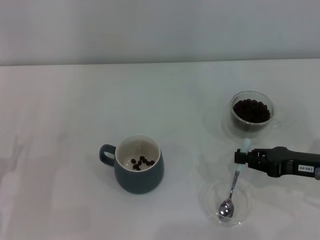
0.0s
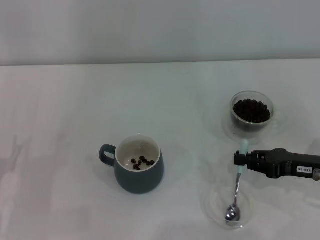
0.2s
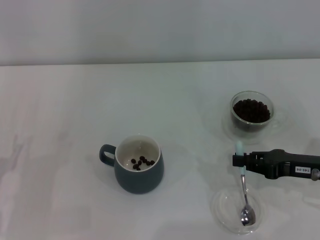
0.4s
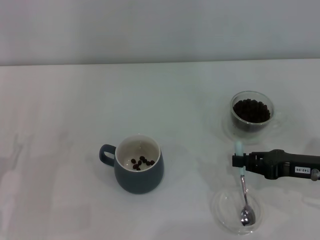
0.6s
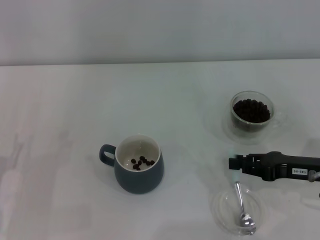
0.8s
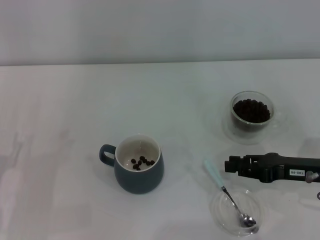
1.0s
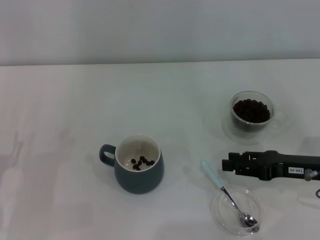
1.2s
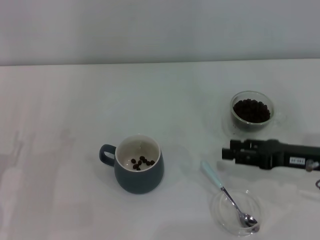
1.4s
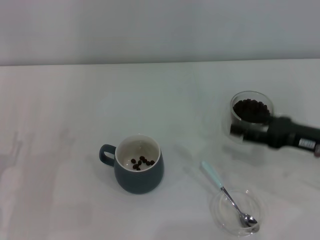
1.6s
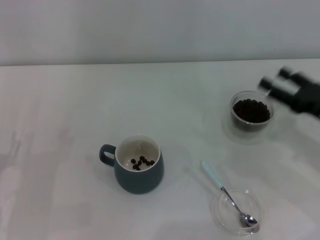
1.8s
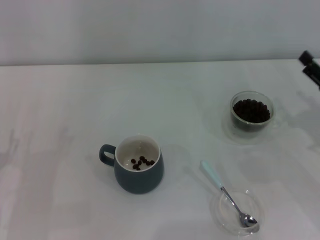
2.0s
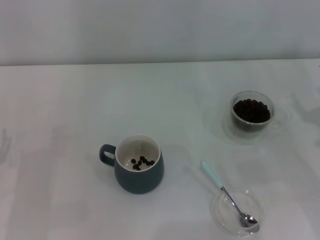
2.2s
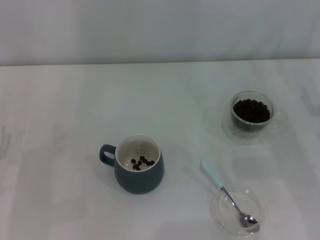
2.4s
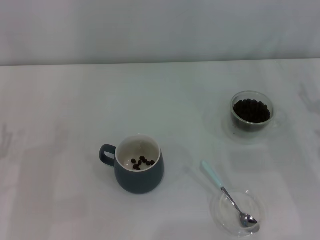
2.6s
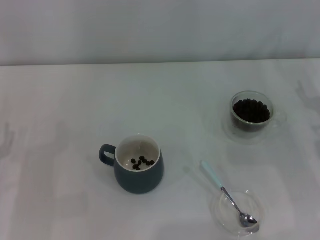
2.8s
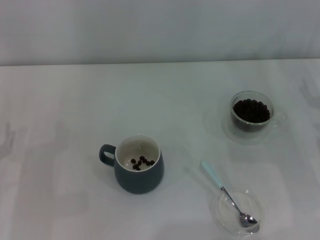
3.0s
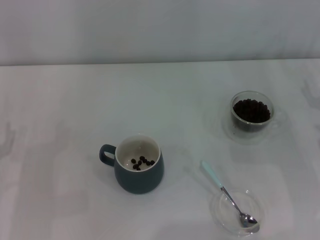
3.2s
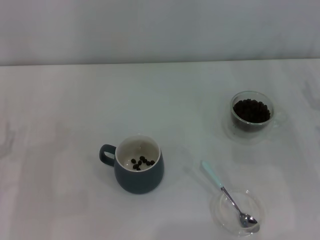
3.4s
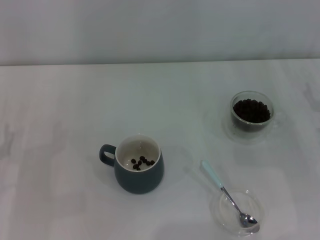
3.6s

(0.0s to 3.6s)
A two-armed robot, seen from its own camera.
Task of the whole recording: Use a blue spoon to take out the coffee beans from the glass and pour them into the gray cup.
0.0s - 1.8s: The right gripper opens up.

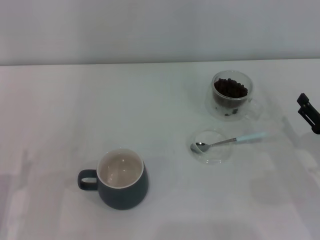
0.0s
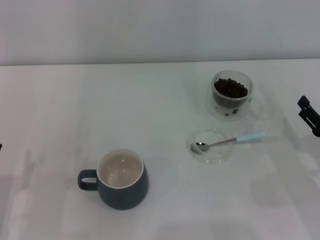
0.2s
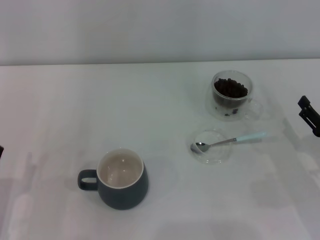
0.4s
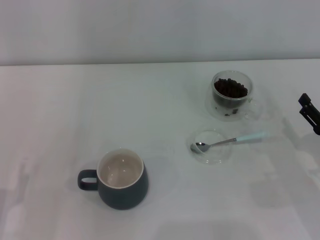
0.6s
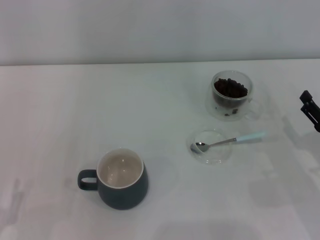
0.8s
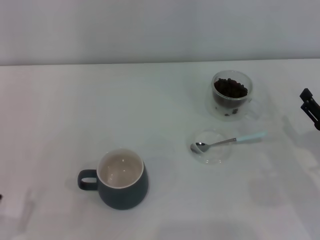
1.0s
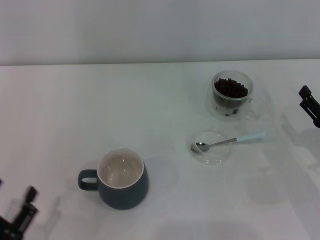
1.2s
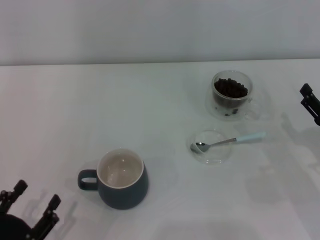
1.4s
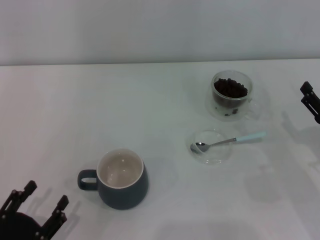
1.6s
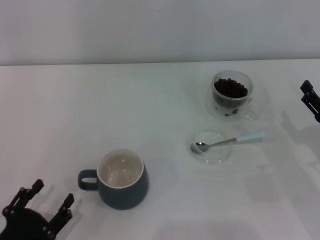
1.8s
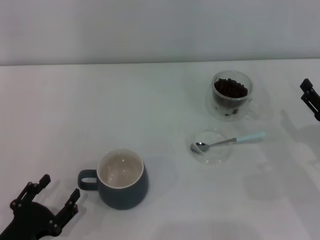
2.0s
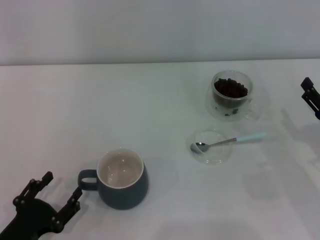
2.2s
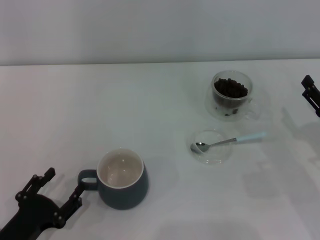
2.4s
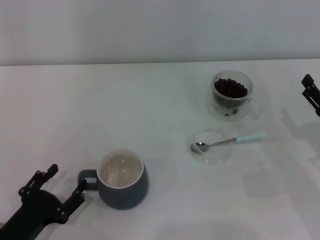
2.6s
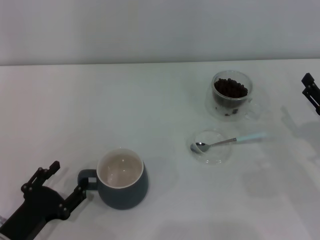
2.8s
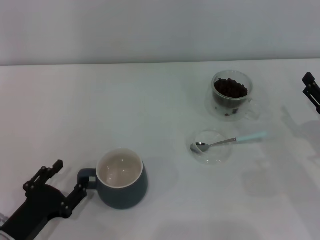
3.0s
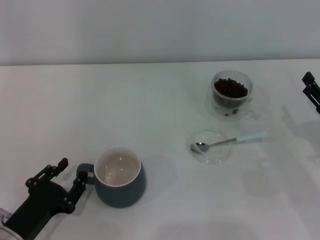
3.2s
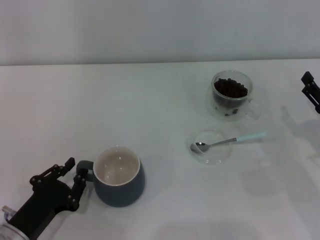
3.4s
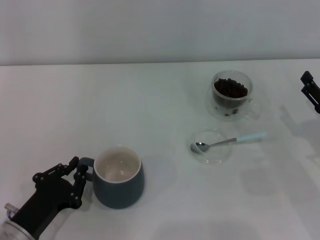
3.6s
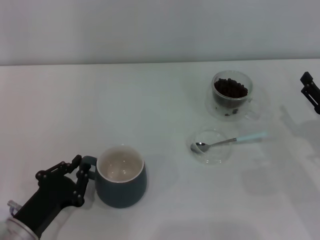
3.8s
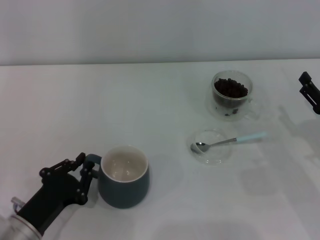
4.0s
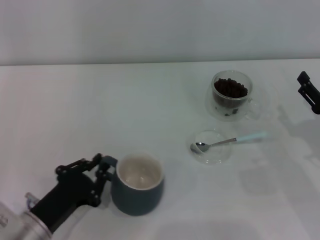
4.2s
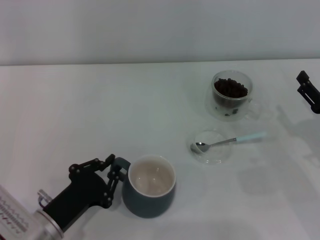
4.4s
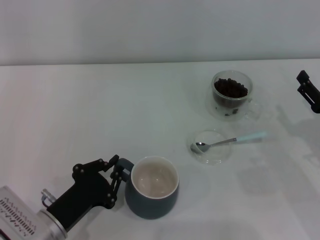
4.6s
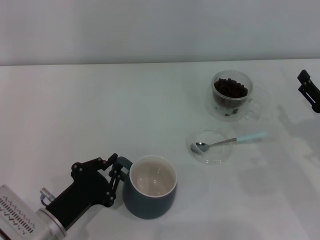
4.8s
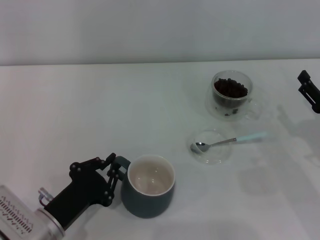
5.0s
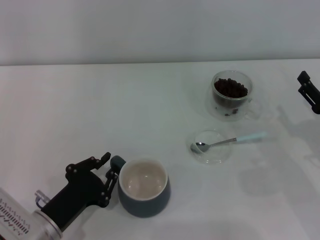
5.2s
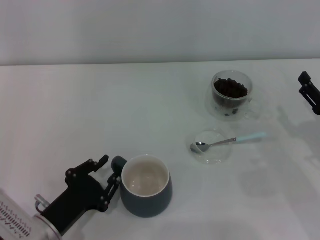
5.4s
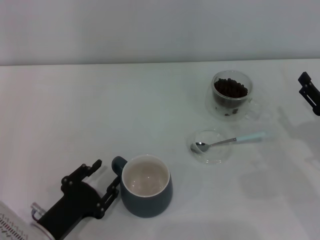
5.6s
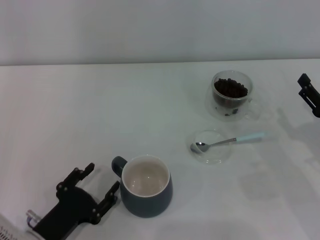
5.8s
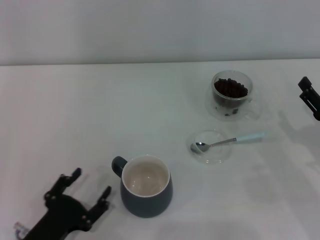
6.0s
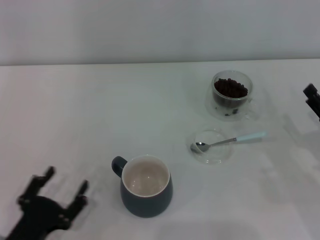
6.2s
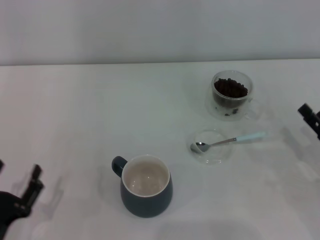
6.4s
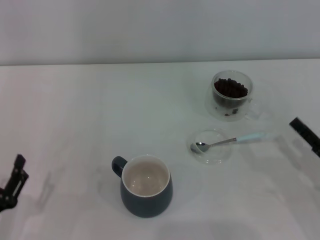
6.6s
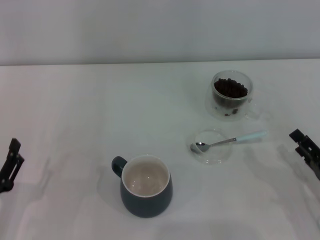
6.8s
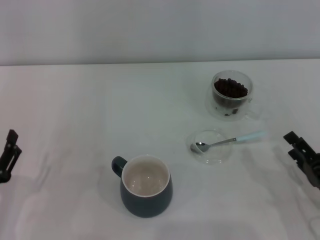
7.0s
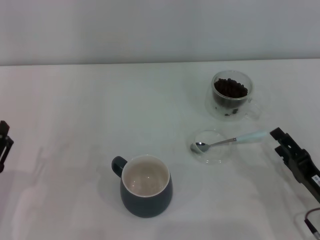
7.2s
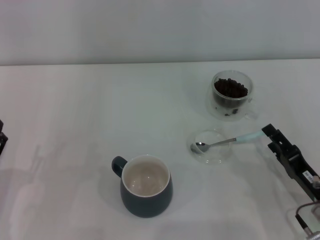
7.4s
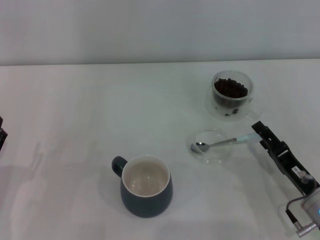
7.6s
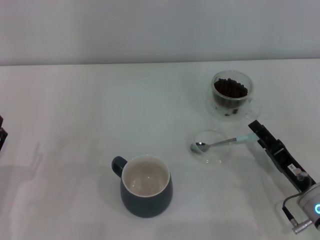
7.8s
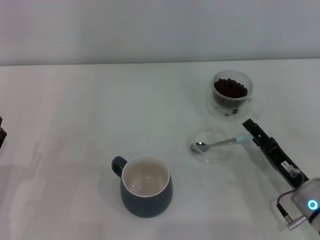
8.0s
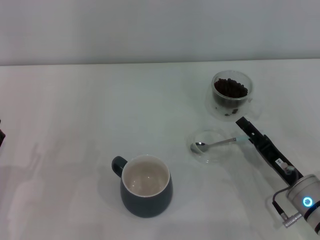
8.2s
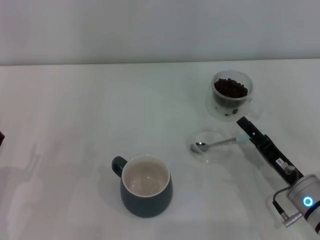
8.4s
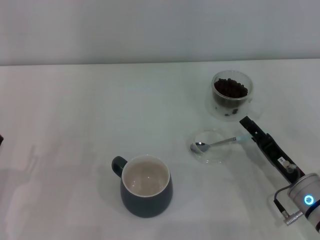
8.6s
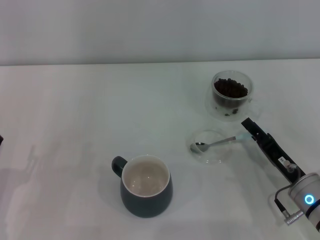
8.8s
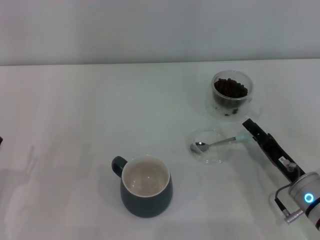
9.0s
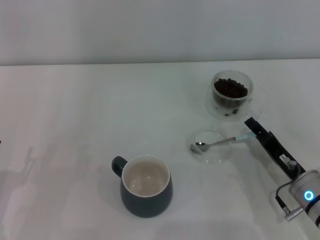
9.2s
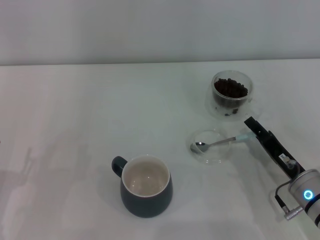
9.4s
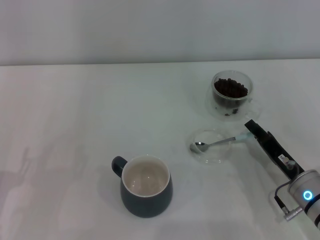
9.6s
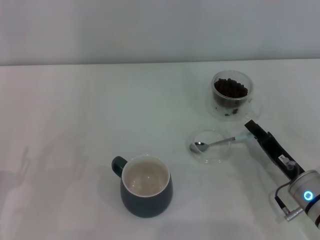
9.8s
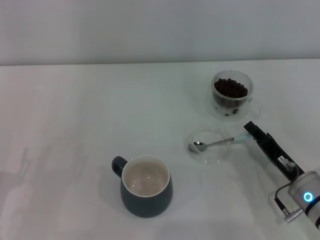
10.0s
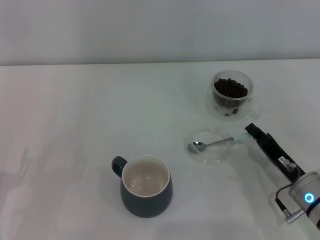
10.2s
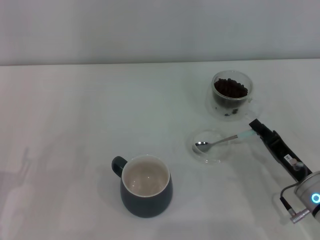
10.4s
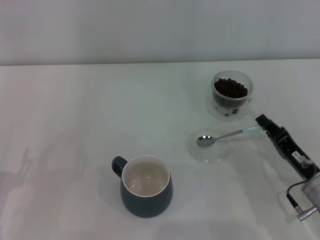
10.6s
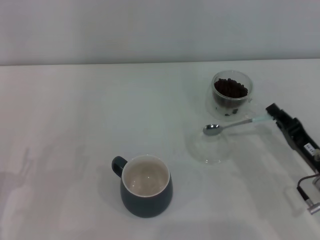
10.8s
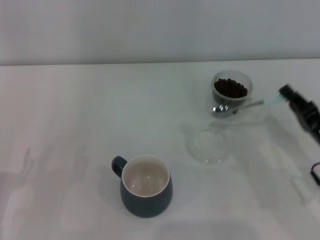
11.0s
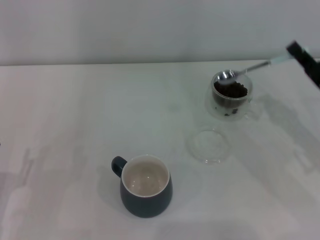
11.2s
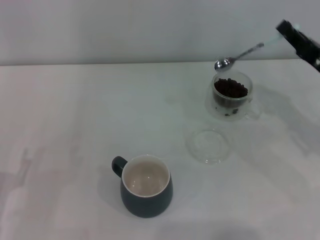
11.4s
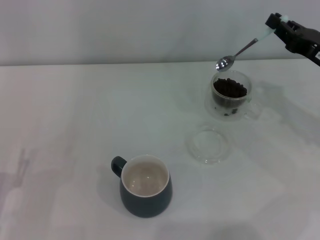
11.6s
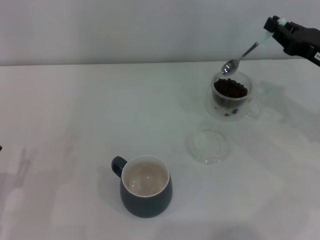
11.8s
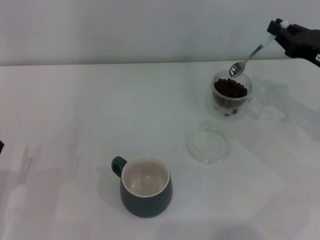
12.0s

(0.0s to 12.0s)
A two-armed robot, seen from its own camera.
Task of the whole recording: Use a blue spoon to take out the coffee beans from the glass and pour them into the gray cup.
Step, 0.0s - 5.8s: Move the cup to the center of view with the left gripper.
Step, 6.2s - 10.8s: Pick up the spoon with the right gripper.
0.0s - 1.6s: The left gripper is displaced backward by some 5 cm.
1.6s - 3.0s: The left gripper moves forward, about 5 cm.
3.0s - 4.4s: The left gripper shifts by some 5 cm, and closes up.
4.4s - 6.0s: The left gripper opens.
6.0s - 7.6s: Both grippers move to the left, approximately 5 cm.
7.6s - 9.0s: The grippers make only small movements.
9.0s - 10.4s: The right gripper closes its fingers.
10.4s - 12.0s: The right gripper goes approximately 20 cm upward, forward and to the right.

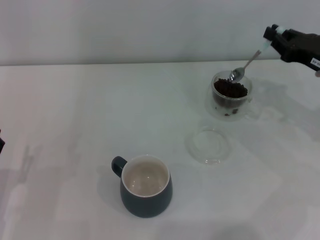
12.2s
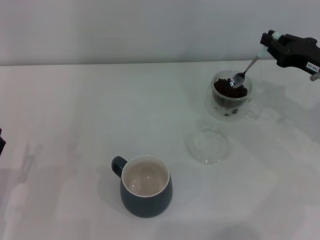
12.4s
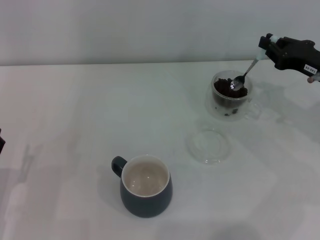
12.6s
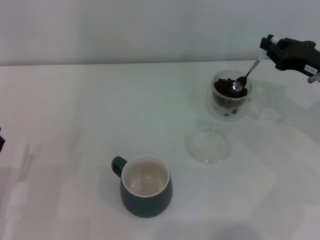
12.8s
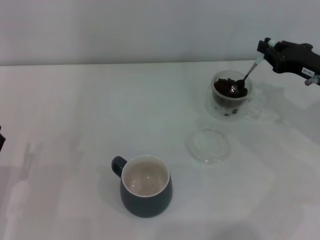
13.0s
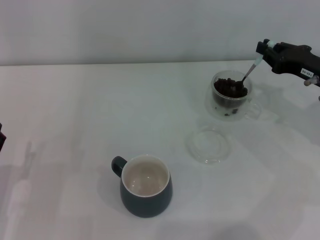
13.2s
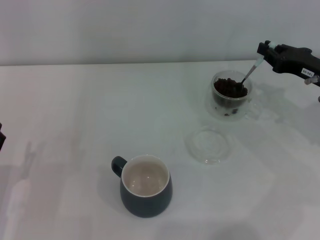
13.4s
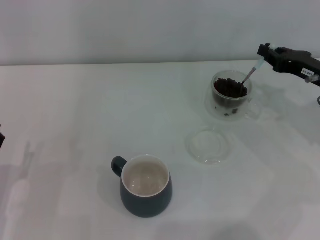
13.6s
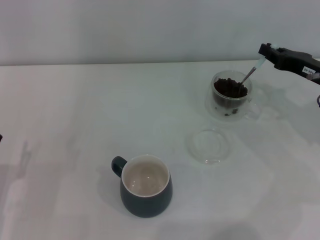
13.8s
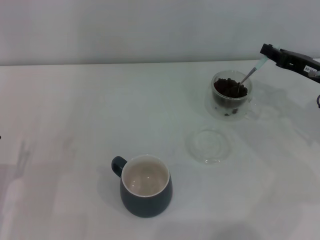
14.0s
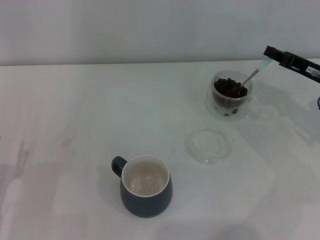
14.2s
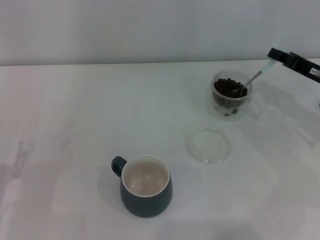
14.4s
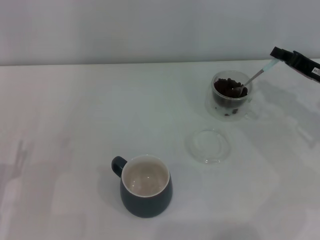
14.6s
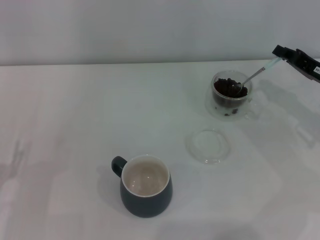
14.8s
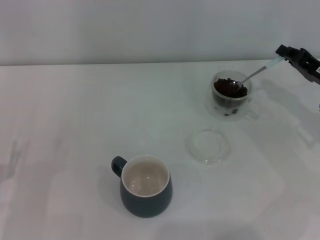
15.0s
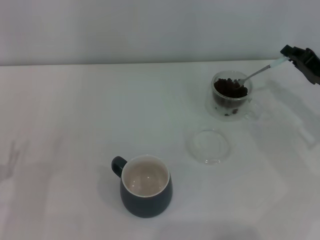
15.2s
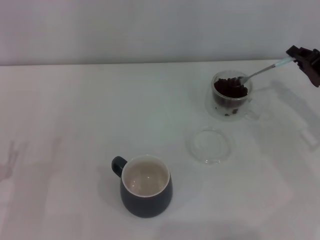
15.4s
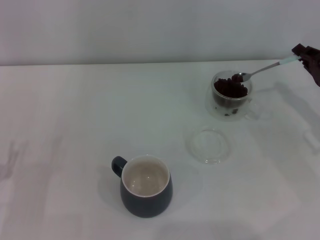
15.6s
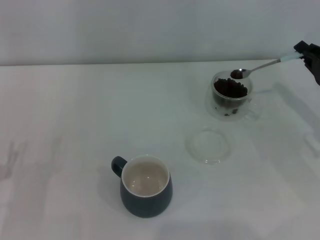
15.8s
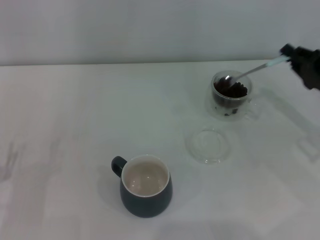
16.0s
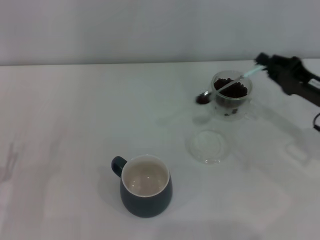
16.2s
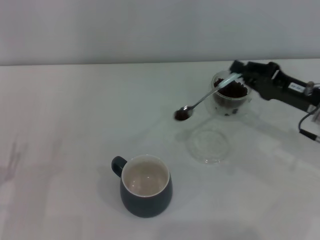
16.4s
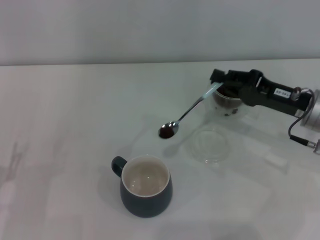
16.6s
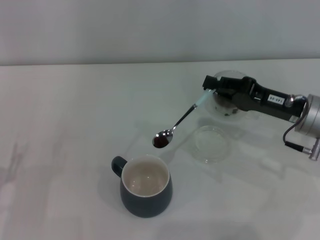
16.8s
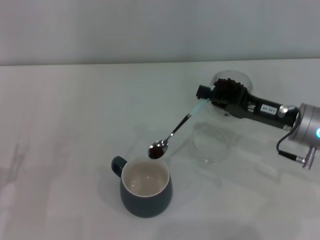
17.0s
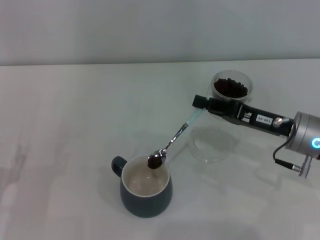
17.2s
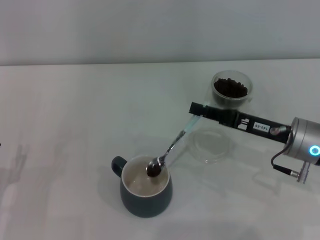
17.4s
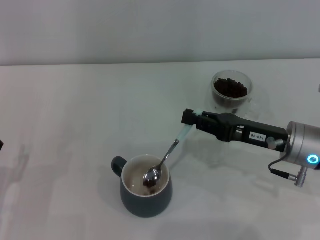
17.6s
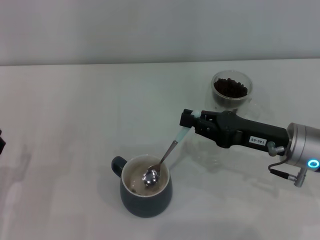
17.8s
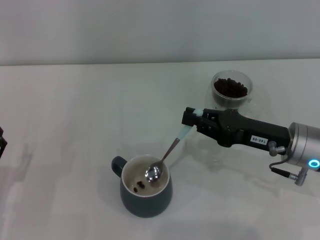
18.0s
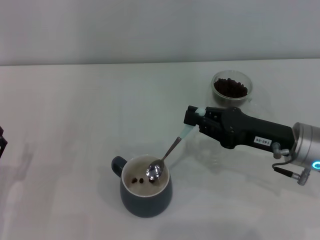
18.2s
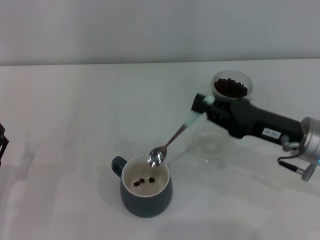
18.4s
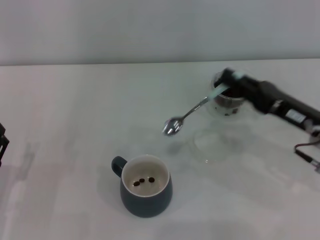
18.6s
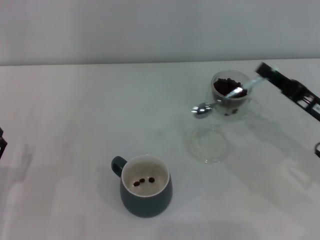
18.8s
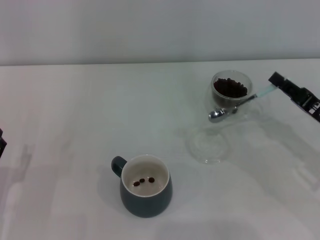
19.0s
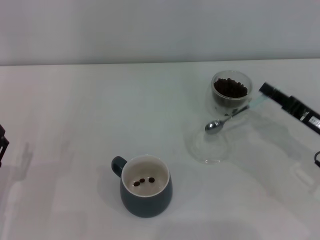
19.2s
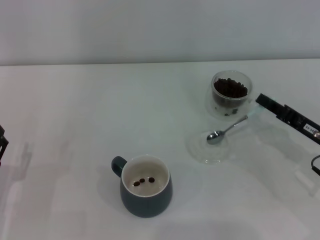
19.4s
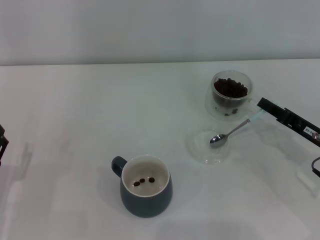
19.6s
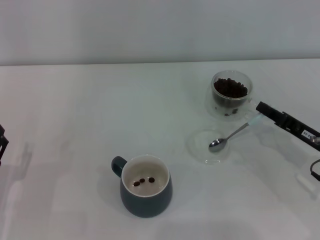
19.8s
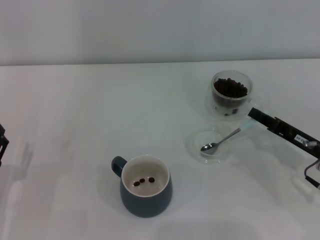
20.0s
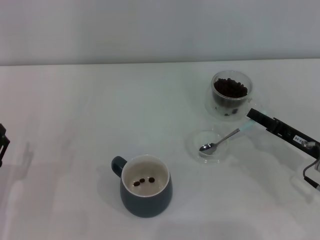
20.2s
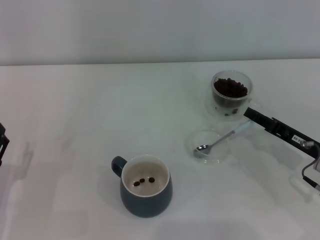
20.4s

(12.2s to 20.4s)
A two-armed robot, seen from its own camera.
Task of the whole recording: Use a blue spoon to take out the coffee beans from the glass and pour them into the gray cup.
Step, 12.2s - 18.4s: Scoop a spoonful of beans into the cup with the right gripper.
12.2s - 13.8s: The grippers move only a little.
15.4s - 17.2s: The right gripper travels to the left by approximately 10 cm.
17.2s - 18.8s: The right gripper heads to the right, covering roughly 5 cm.
